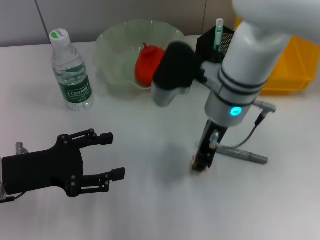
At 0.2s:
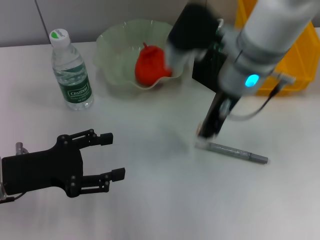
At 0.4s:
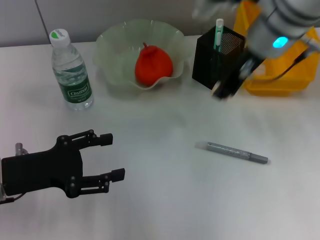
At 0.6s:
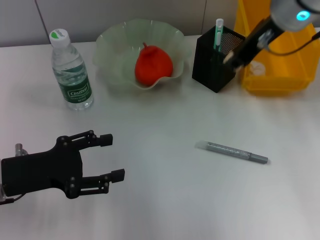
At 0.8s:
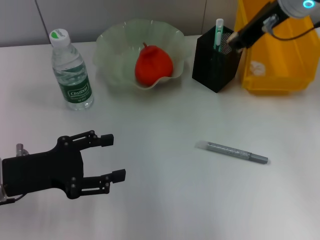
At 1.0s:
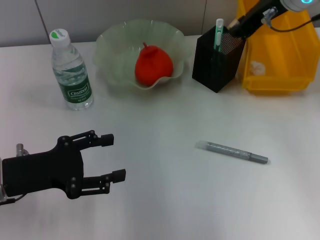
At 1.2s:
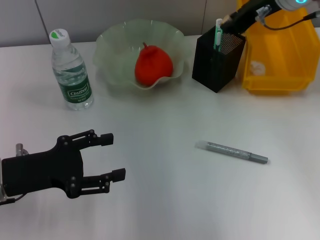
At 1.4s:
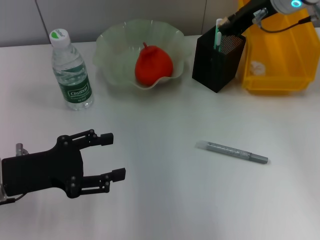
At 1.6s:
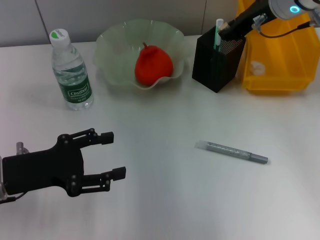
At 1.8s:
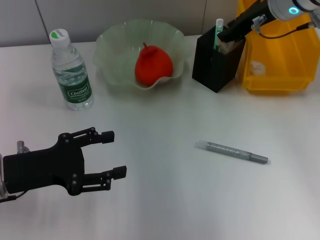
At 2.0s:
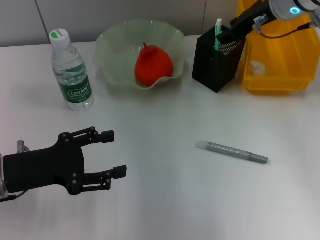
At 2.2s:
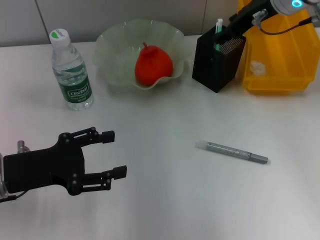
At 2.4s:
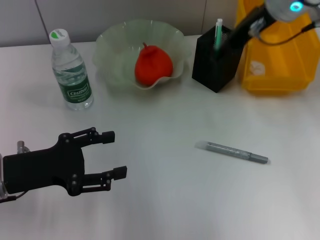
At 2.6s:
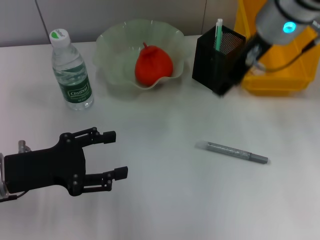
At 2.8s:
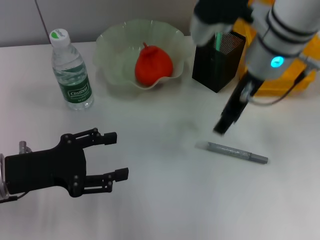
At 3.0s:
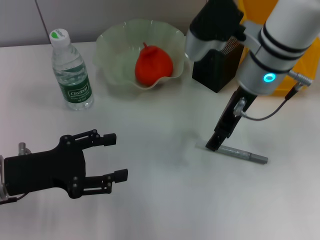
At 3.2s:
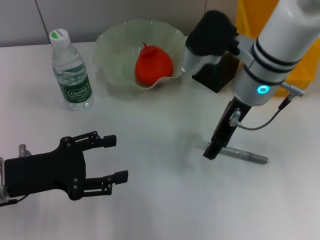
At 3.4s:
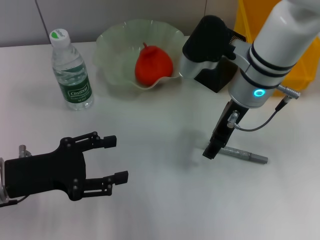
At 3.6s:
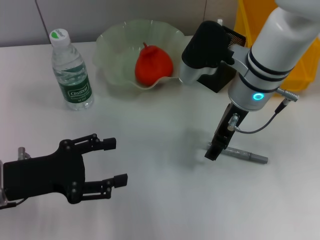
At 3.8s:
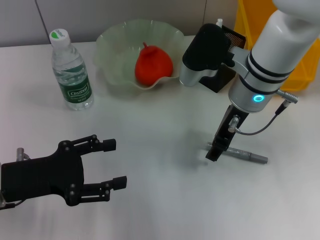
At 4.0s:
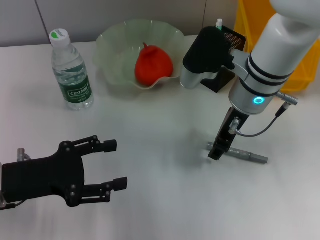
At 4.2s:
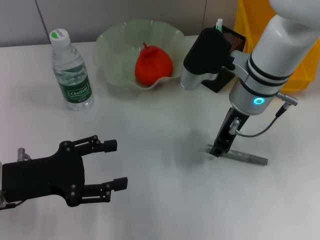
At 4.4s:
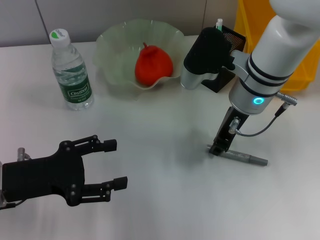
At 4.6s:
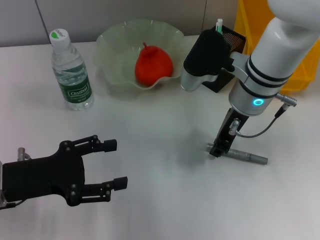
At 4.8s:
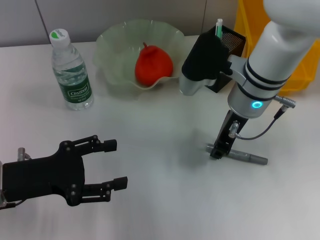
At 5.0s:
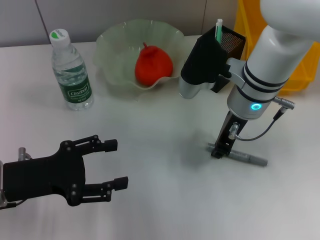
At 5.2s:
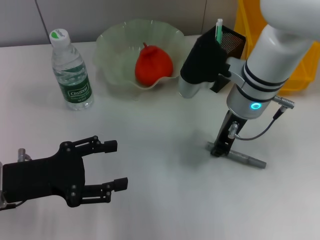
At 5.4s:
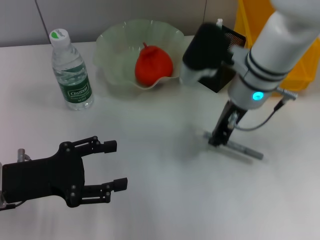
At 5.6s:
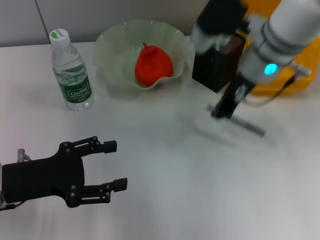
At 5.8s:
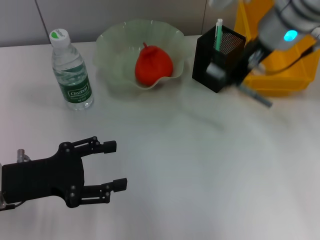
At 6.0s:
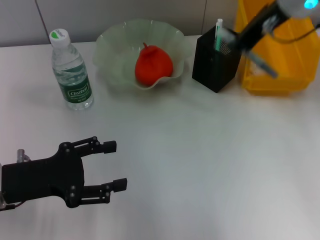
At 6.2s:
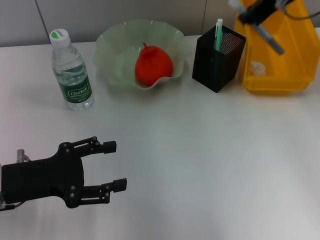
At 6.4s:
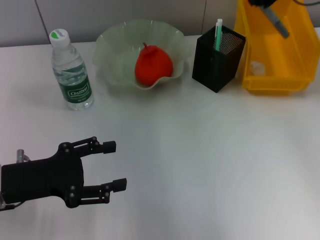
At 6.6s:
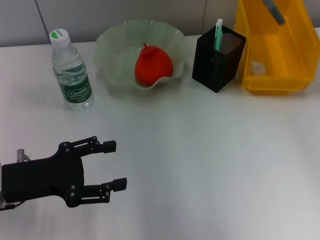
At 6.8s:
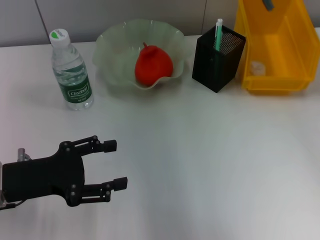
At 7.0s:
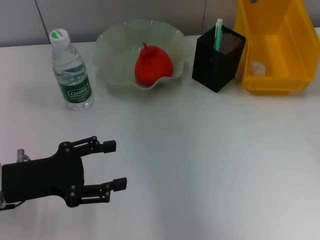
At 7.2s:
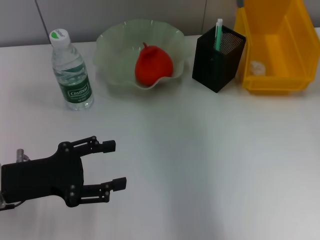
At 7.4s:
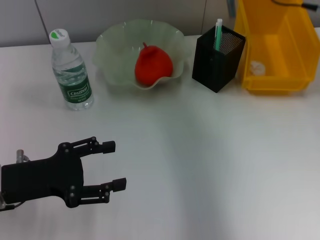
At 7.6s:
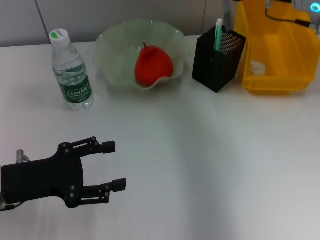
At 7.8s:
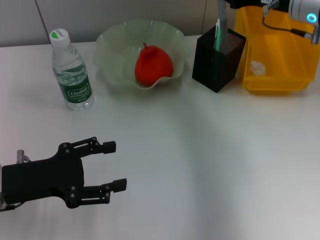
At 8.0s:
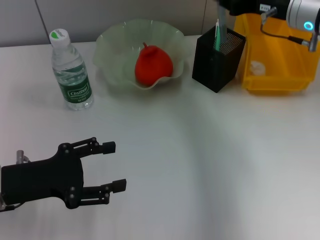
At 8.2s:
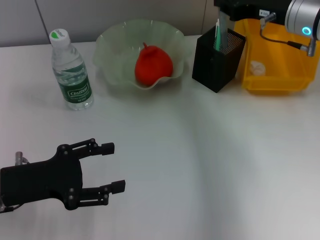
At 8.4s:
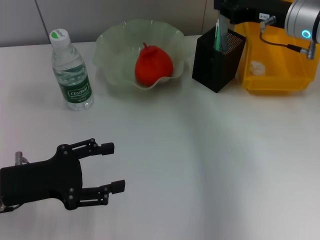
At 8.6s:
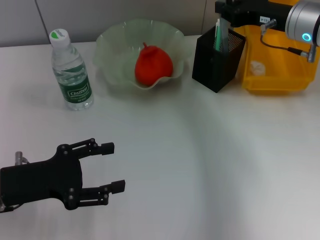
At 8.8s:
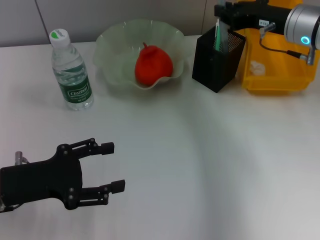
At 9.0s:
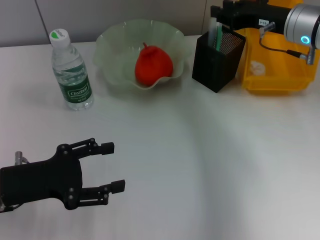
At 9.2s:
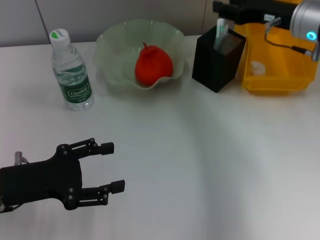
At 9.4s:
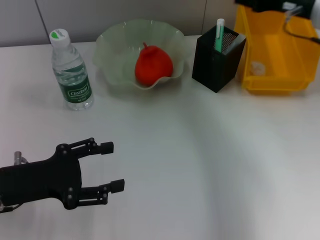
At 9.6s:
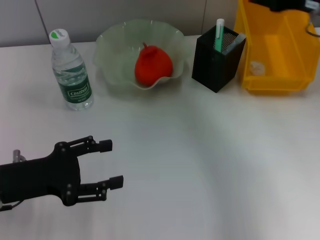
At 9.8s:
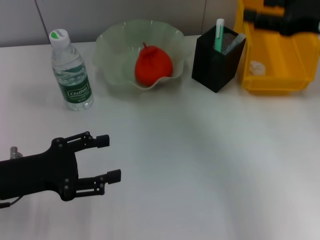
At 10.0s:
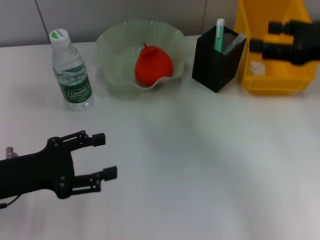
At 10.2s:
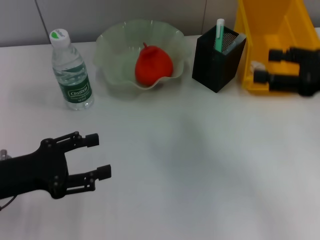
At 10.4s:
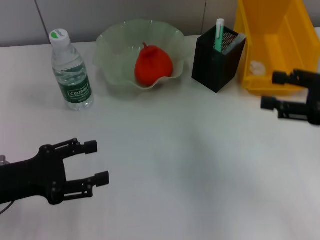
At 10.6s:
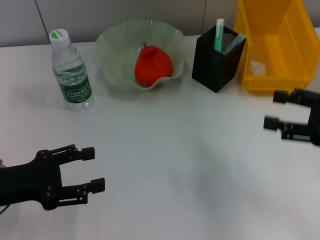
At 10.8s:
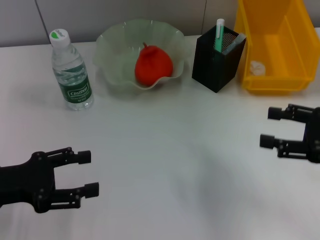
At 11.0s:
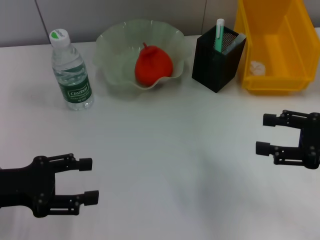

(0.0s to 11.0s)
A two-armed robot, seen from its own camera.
Step, 0.0s - 1.8s: Put the eraser into the pen holder with the right hand.
Step, 2.0s - 5.0s: Grab the gray glue with the right hand.
Step, 5.2s - 9.2s: Place the gray glue into the pen holder with the right hand.
0.0s - 1.6s: The right gripper shifts approximately 15 cm to the right, forward and upward.
1.6s - 3.2s: The right gripper shifts about 10 cm backward and to the left, and opens its fingers.
3.2s - 4.8s: The right gripper closes.
4.8s - 6.2s: The right gripper goes some 15 cm upward and to the right.
6.2s - 7.8s: The right gripper heads downward, covering roughly 10 cm.
7.8s - 9.4s: The right gripper opens its fingers.
9.4s - 11.0s: The right gripper heads backward and downward, covering some 20 cm, and opens up.

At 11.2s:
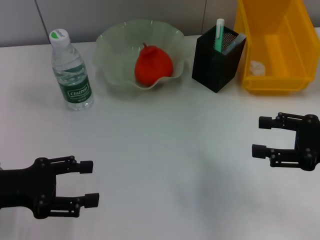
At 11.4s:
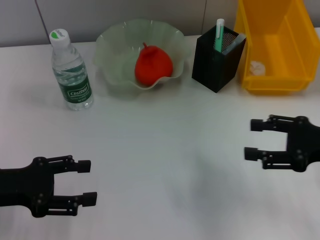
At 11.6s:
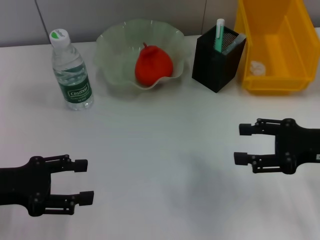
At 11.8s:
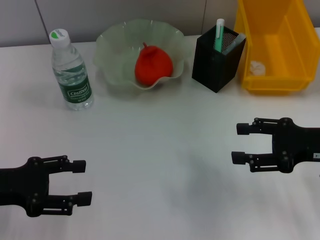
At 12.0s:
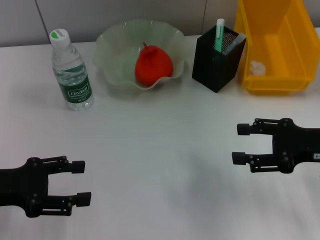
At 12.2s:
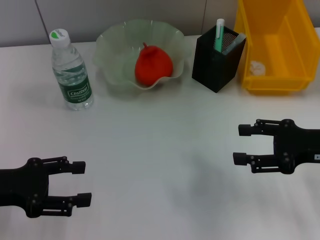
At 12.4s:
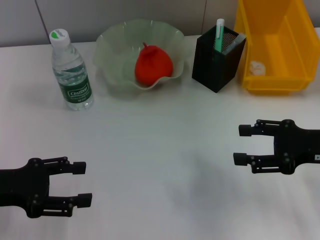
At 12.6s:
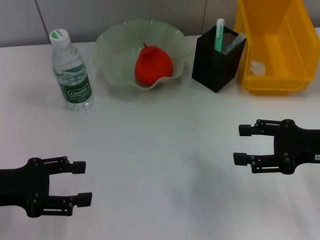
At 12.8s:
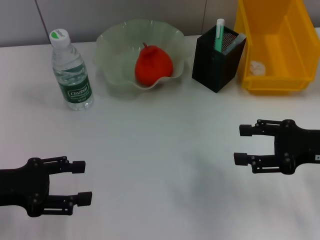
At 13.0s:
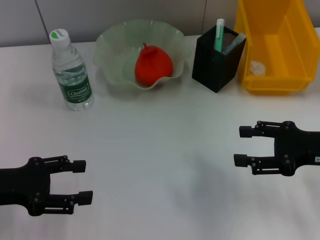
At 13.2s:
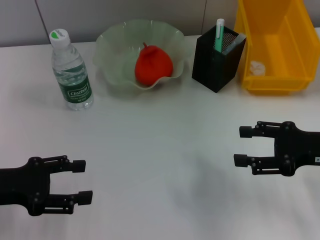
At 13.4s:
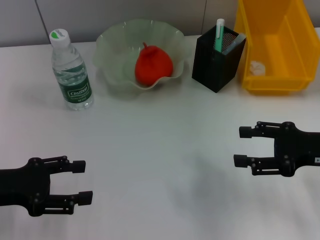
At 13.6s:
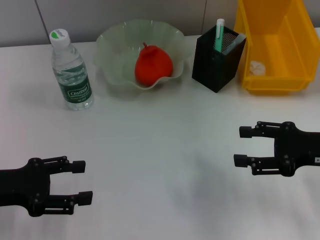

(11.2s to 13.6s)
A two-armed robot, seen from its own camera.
11.2s - 12.4s: There are only small adjustments of the grippers.
12.4s - 13.6s: Both grippers stay about where they are.

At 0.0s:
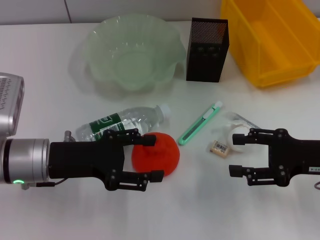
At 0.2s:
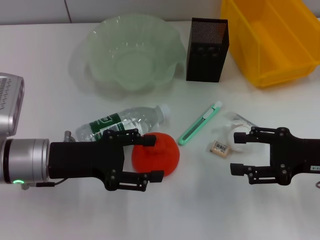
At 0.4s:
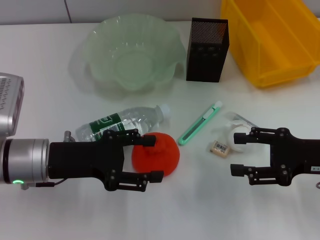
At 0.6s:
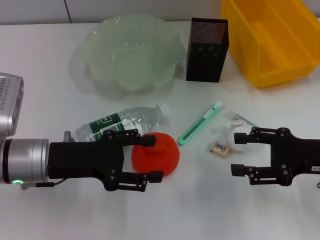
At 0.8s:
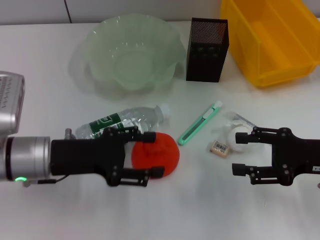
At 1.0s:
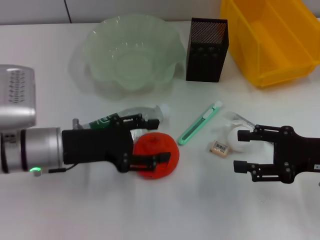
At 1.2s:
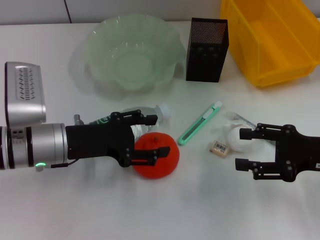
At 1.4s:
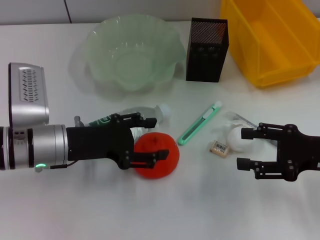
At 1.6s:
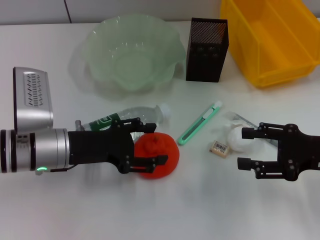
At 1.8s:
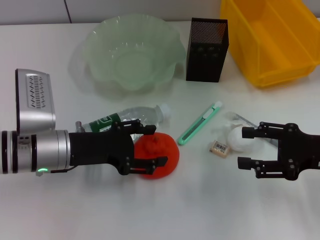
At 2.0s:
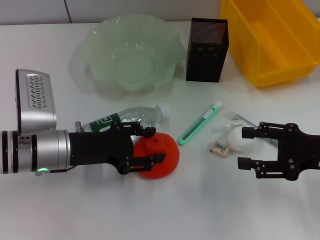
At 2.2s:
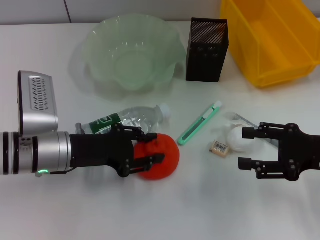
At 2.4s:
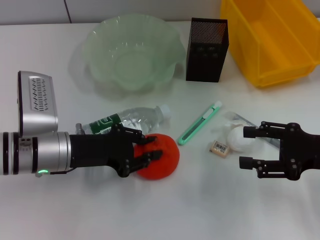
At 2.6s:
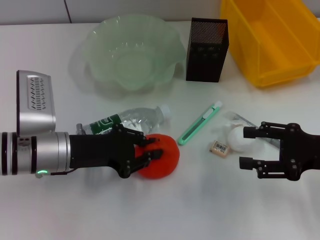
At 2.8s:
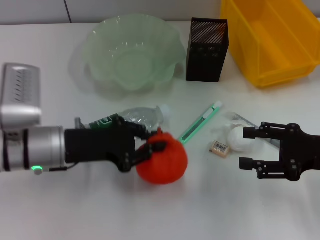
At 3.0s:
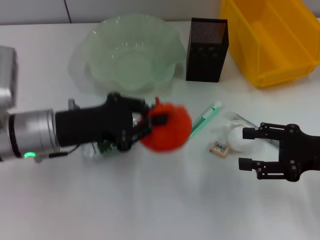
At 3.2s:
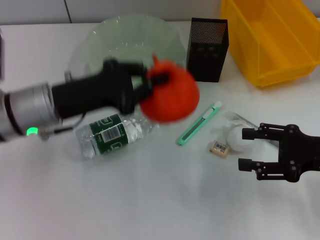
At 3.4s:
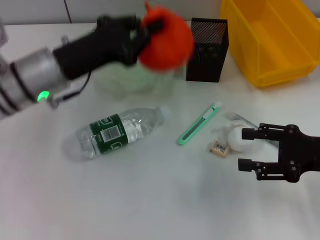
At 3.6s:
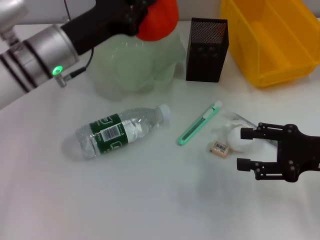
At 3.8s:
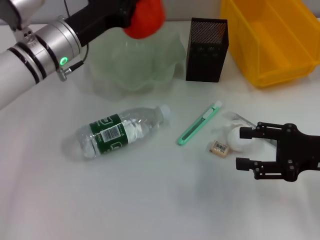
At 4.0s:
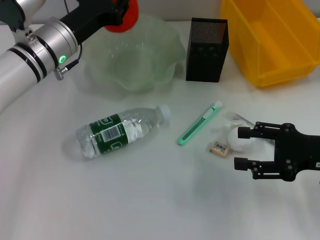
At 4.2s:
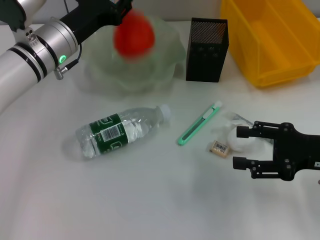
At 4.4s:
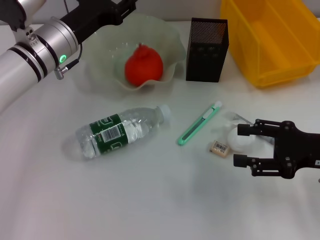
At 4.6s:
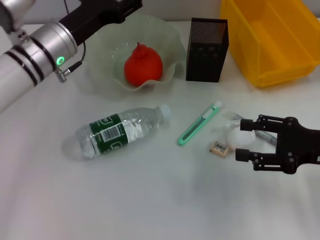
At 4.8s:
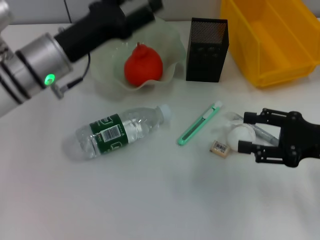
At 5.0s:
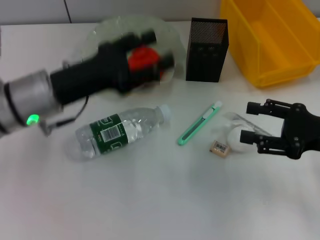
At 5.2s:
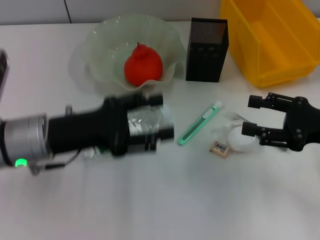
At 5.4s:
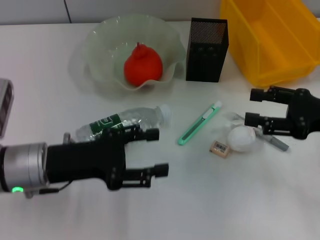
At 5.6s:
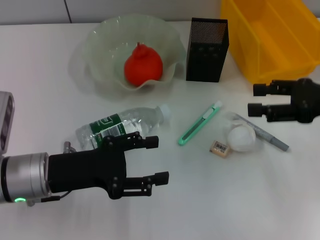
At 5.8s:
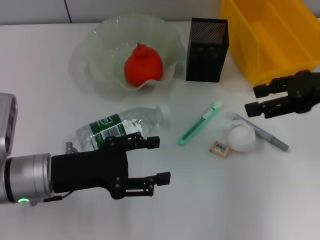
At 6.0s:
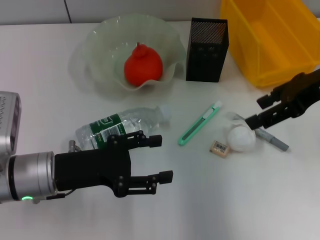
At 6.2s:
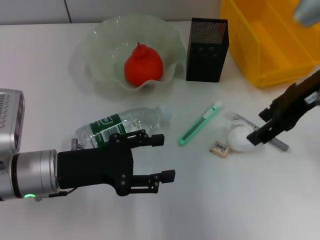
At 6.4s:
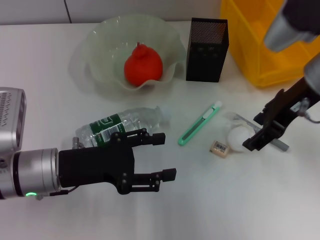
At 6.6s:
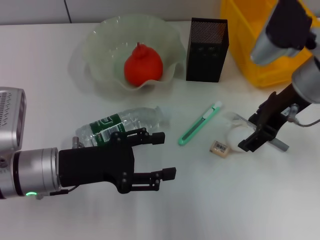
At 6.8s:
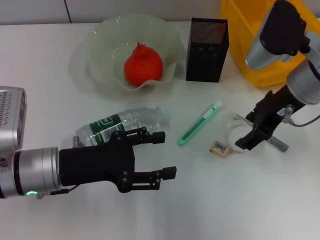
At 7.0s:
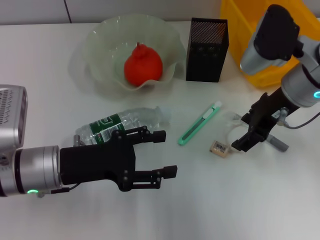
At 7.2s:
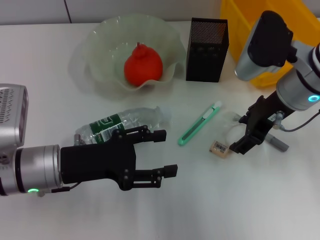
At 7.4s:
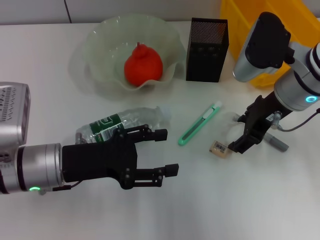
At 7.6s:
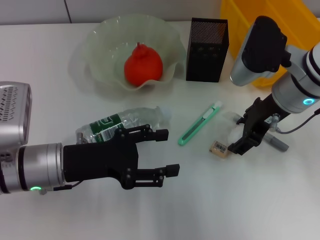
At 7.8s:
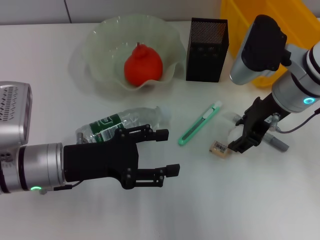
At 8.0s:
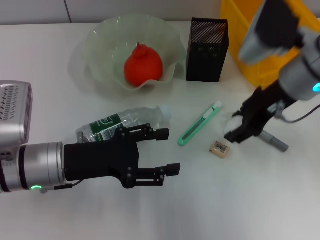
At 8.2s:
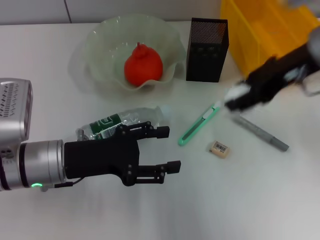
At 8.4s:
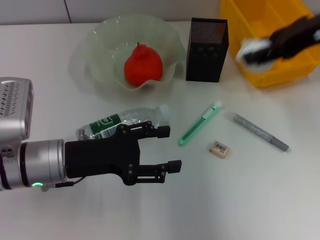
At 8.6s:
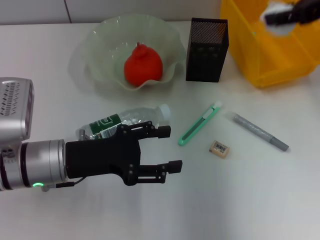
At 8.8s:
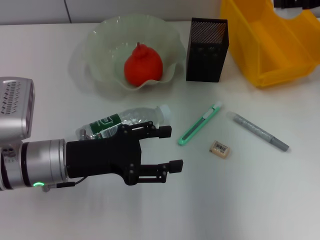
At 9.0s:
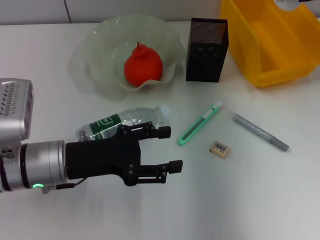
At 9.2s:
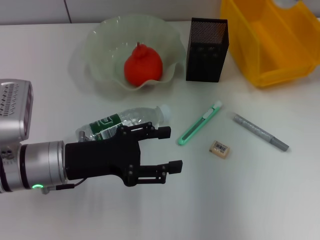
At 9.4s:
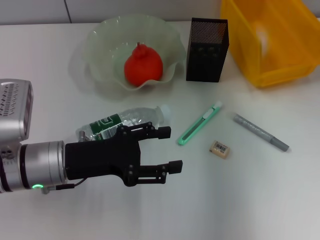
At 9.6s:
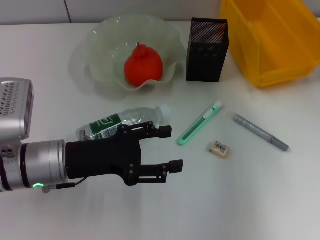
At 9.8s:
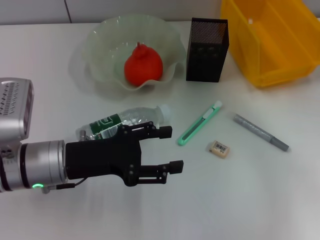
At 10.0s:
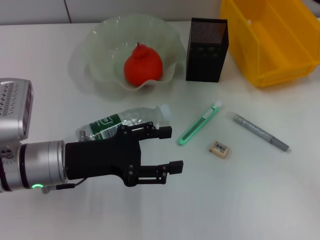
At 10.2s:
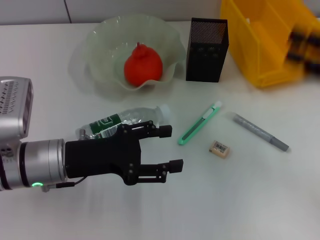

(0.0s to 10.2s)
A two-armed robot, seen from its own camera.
Step, 0.0s - 2.4s: Grab the orange with the left hand.
Step, 2.6s - 4.4s: Place the orange into the fruit bowl with the left hand.
Step, 4.6s - 7.6s: Grab the paper ball with the right hand.
Step, 7.8s - 9.6s: Place the paper ball into the trash can with the right hand.
0.0s - 1.4s: There are only small adjustments of the grippers.
1.4s - 3.0s: The left gripper closes its fingers.
3.0s - 4.4s: The left gripper is displaced forward by about 10 cm, and opens its fingers.
4.4s - 5.8s: The right gripper travels upward and forward by some 10 cm, while the left gripper goes about 15 cm backward, and opens.
5.8s - 7.2s: The right gripper goes about 10 cm to the left.
7.2s - 8.8s: The right gripper travels to the right and upward by about 15 cm.
8.8s - 10.2s: The right gripper heads downward and backward, covering approximately 15 cm.
